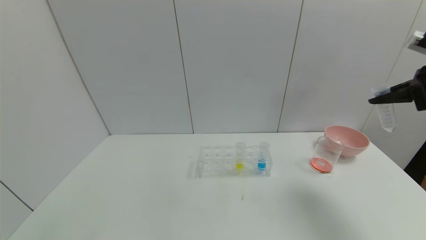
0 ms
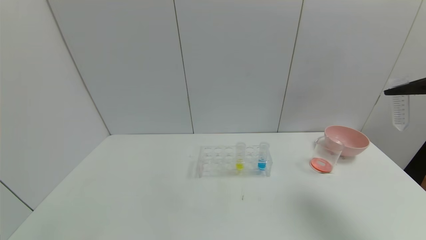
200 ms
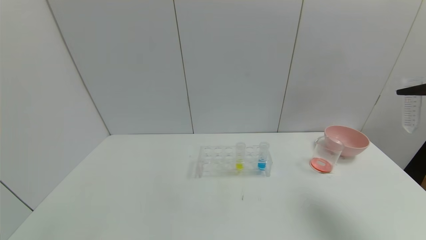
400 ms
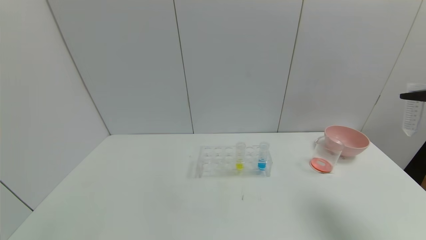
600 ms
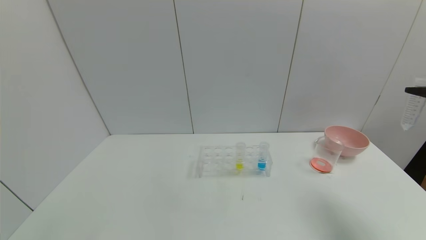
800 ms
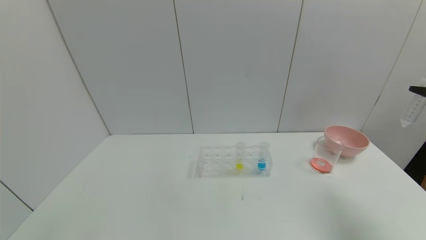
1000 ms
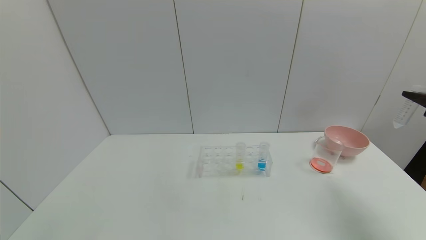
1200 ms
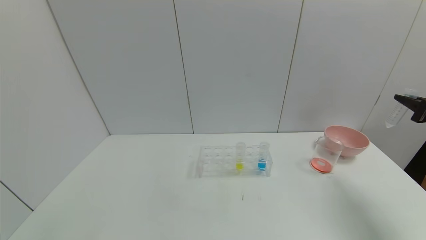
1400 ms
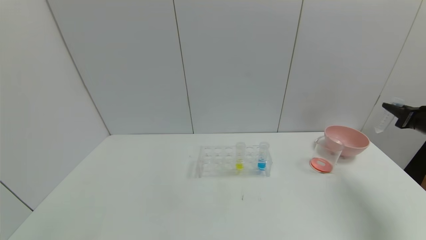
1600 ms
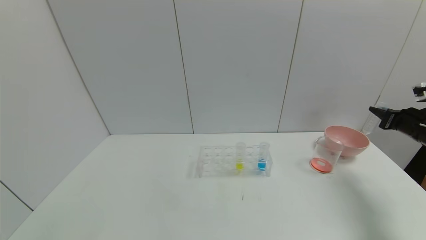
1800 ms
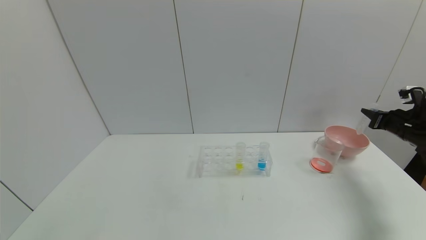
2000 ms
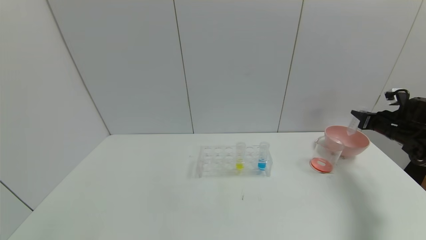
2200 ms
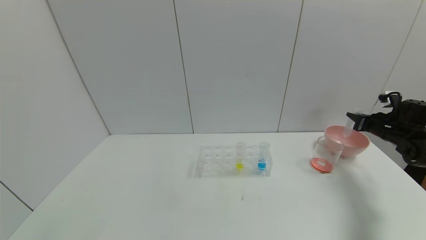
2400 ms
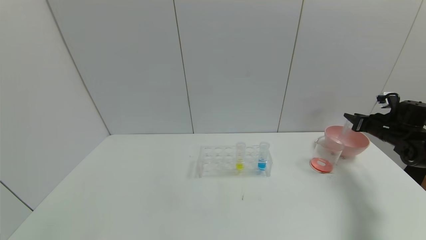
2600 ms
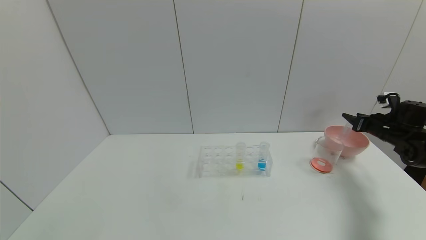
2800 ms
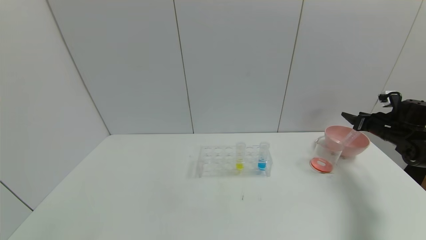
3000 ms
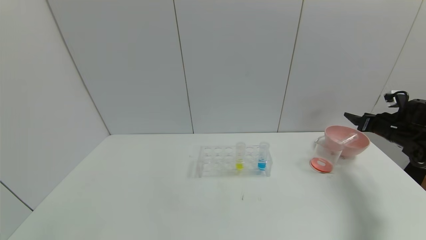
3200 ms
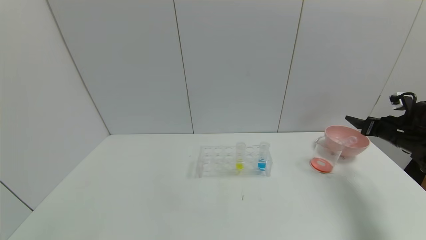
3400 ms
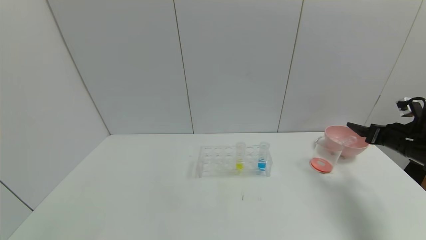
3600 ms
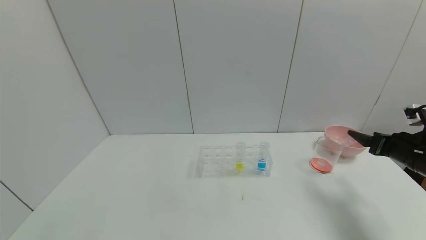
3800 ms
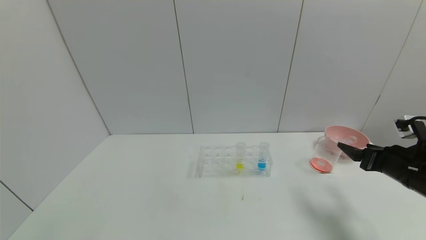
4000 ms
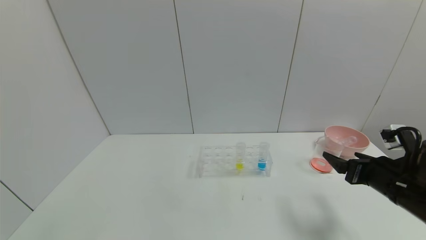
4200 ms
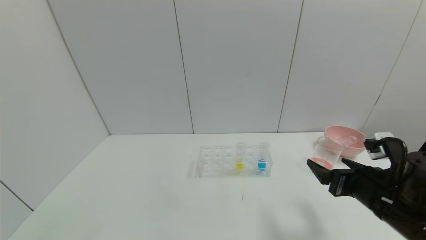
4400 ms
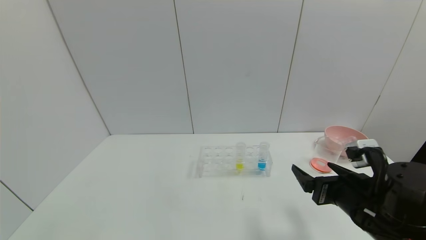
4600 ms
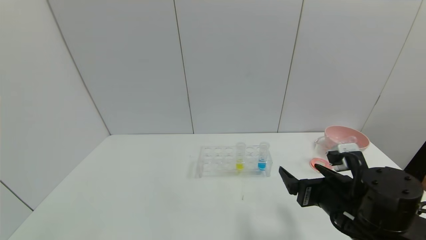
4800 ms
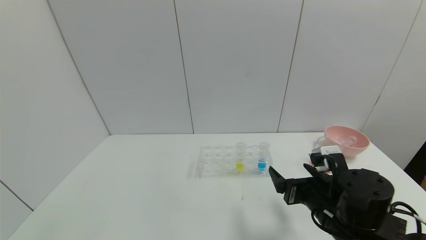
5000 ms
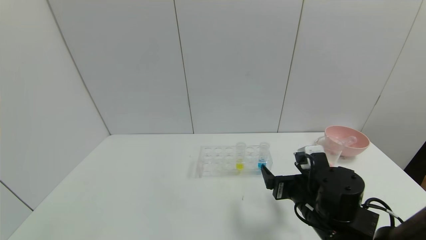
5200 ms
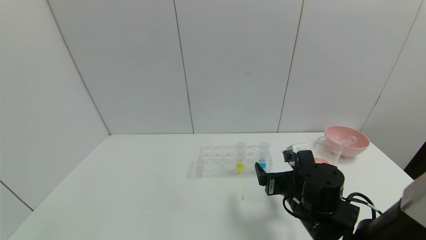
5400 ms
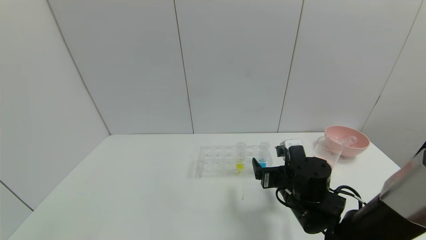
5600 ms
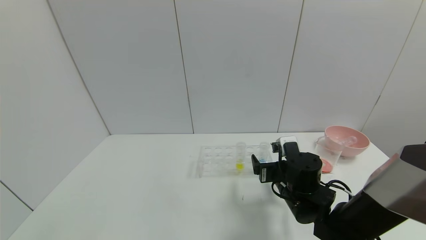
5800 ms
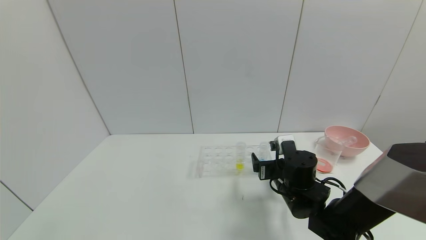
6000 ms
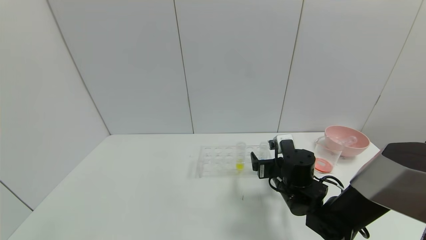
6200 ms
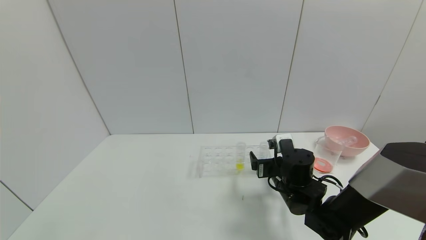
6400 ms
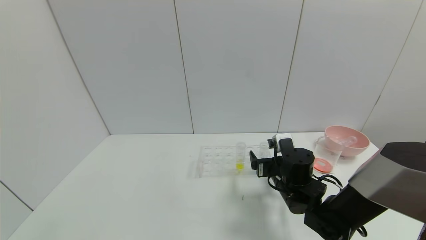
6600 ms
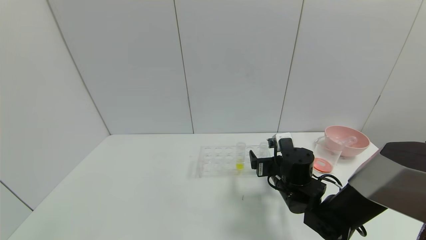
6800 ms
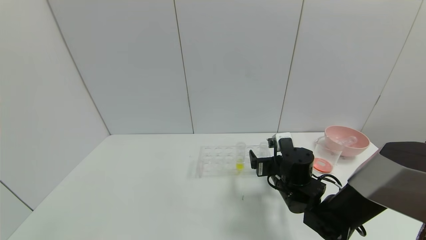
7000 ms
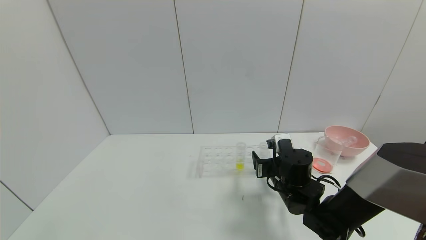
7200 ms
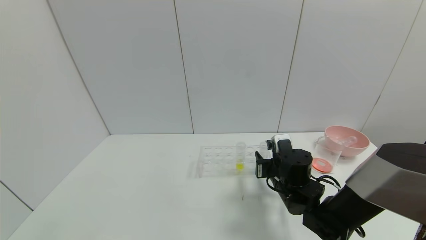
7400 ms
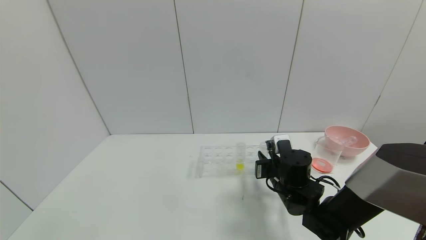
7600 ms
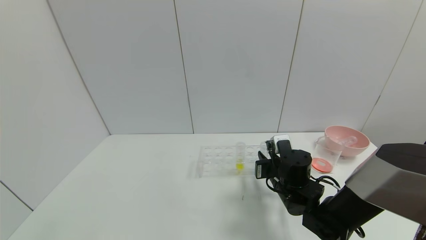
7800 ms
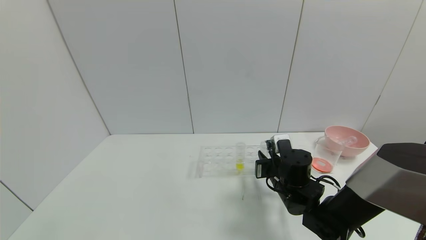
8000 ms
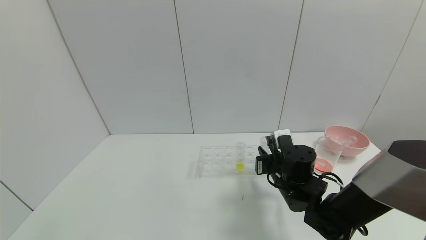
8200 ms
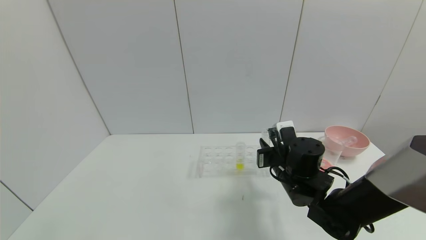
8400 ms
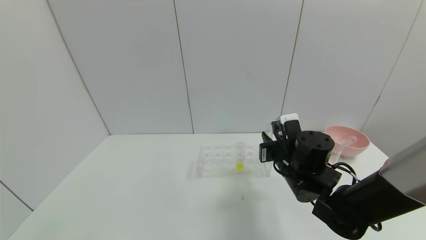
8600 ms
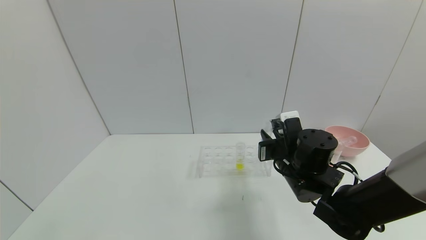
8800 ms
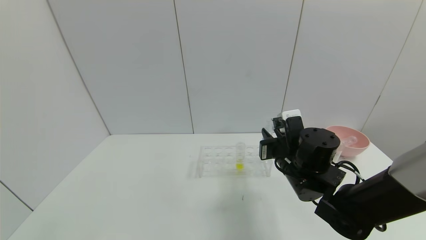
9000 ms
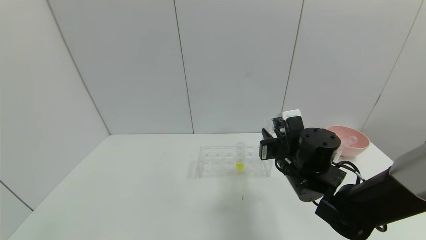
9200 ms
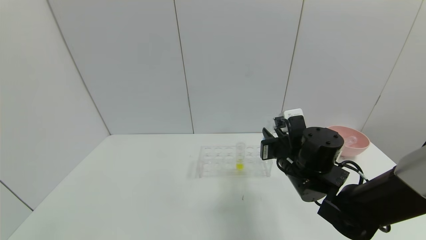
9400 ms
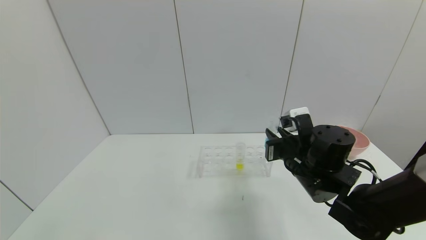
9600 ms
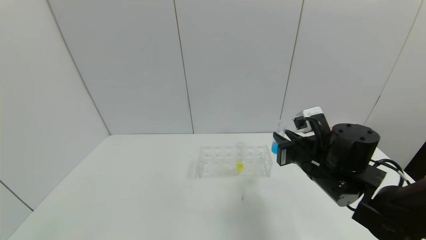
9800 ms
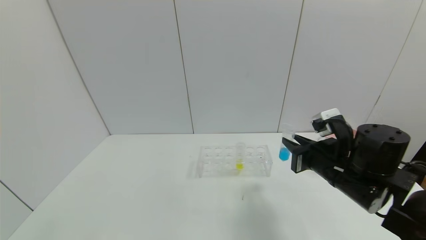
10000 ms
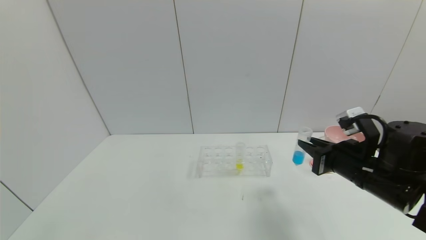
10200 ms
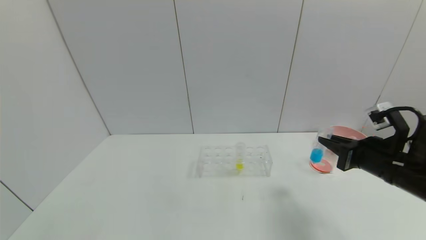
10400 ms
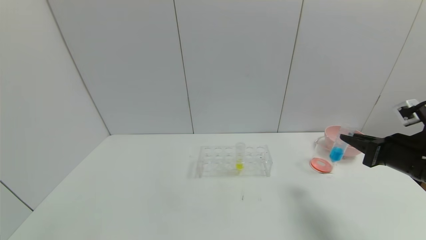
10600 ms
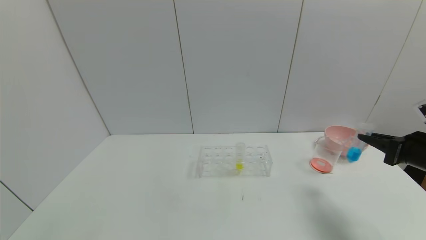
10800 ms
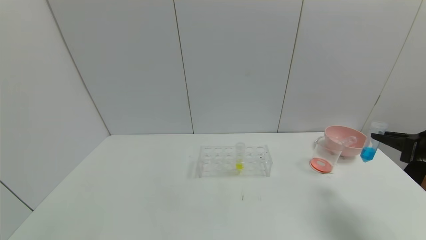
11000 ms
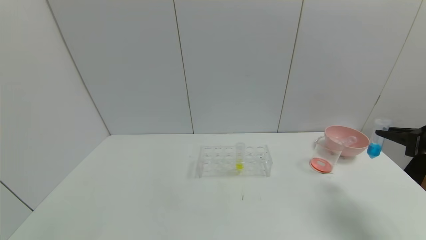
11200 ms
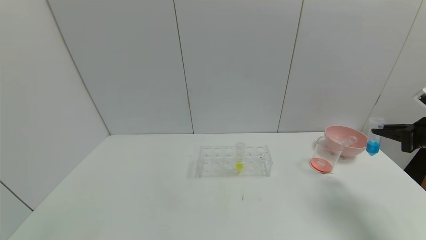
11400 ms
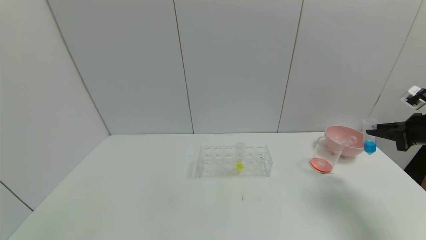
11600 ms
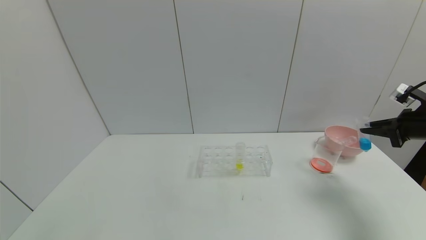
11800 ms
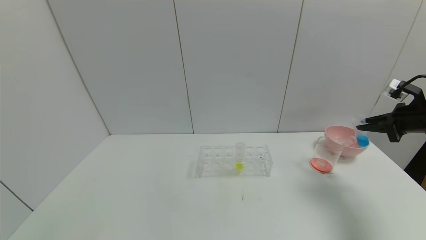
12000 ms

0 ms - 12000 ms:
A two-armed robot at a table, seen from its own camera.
Task of the whole recording: pick up the test tube with red pigment and the test tube with blue pigment by grippers and pour them into the container.
Step, 0 ms - 3400 ms: Place the test tube into the bowl with right gripper.
Step, 3600 ms - 10000 ms: Pick up the test tube containing the blue reagent with right gripper.
0 ms - 1600 ms: The right gripper shifts some 15 cm downward and to the right.
1600 ms - 3000 ms: The right gripper shifts roughly 10 cm forward and downward, and opens up.
3000 ms - 4400 ms: The right gripper shifts approximately 30 cm backward and to the left.
4400 ms - 6000 ms: The right gripper goes roughly 15 cm to the left, forward and downward.
6000 ms - 7600 ms: The right gripper closes its fingers.
7600 ms - 9000 ms: The right gripper moves upward, roughly 5 cm.
9000 ms - 10400 ms: The right gripper heads to the right, covering approximately 15 cm.
10400 ms - 12000 ms: The right gripper heads to the right and forward, covering some 15 cm.

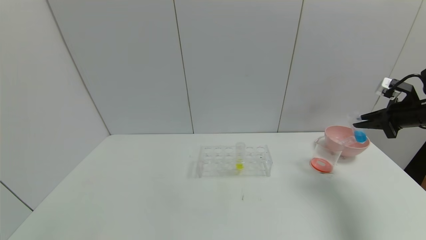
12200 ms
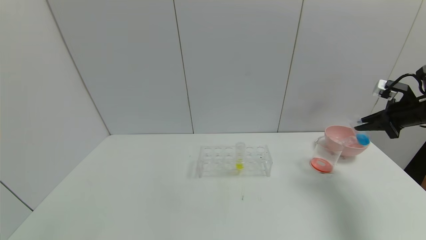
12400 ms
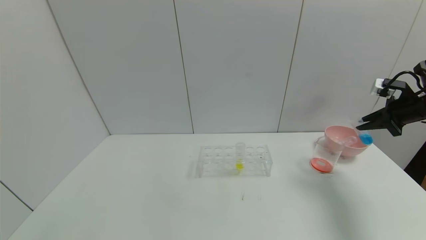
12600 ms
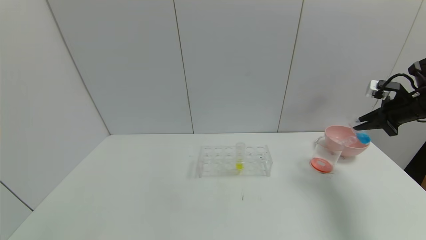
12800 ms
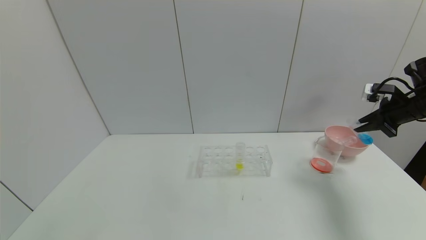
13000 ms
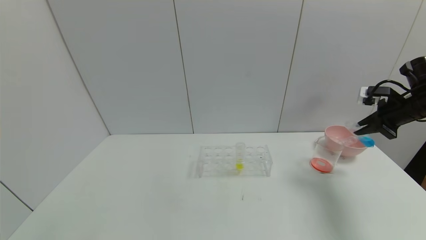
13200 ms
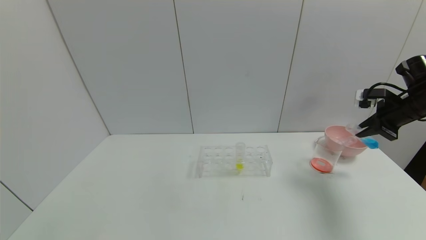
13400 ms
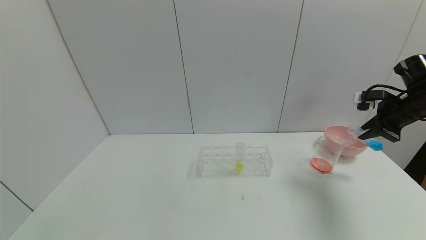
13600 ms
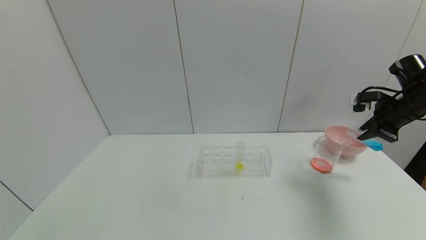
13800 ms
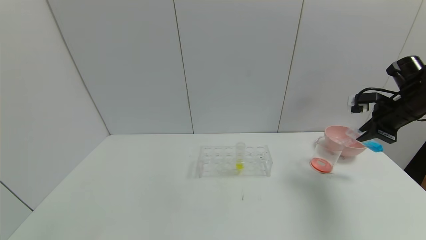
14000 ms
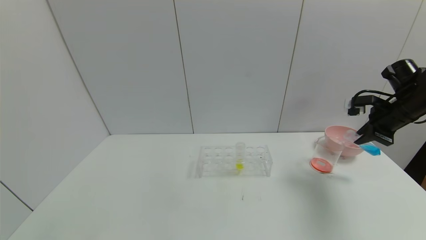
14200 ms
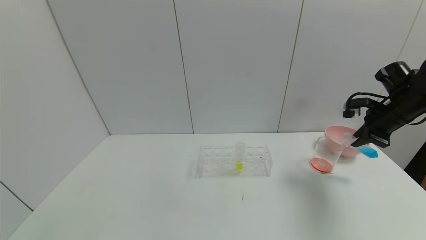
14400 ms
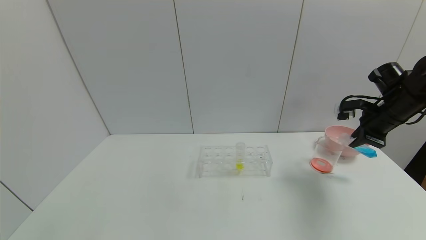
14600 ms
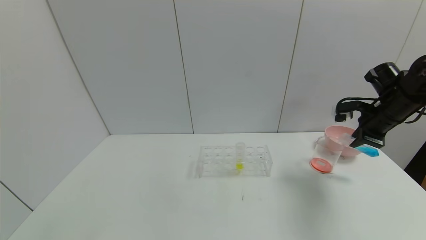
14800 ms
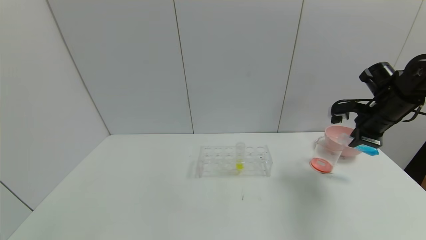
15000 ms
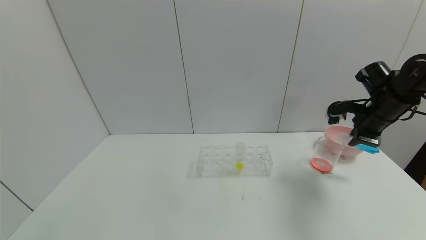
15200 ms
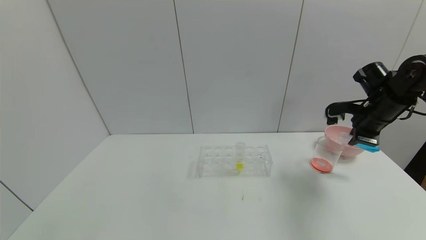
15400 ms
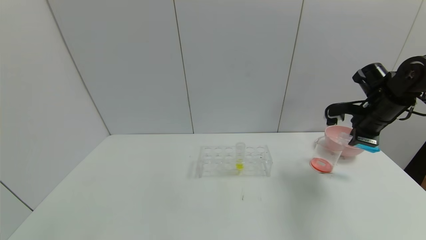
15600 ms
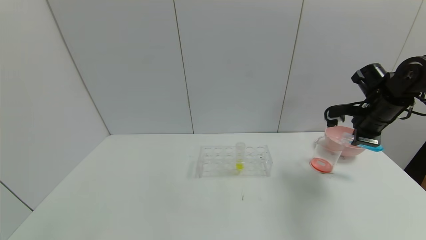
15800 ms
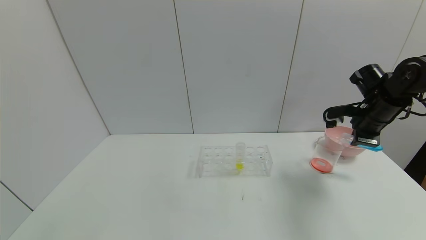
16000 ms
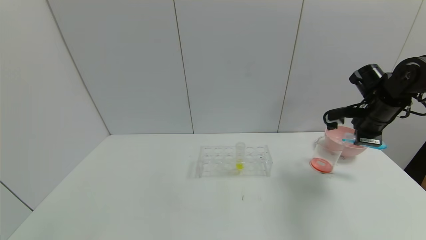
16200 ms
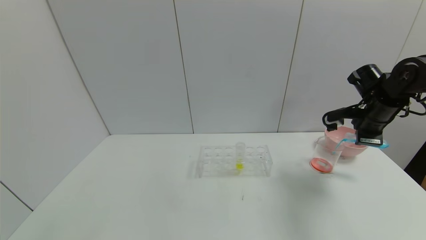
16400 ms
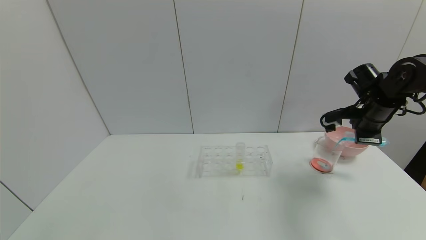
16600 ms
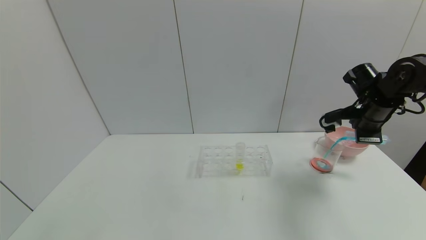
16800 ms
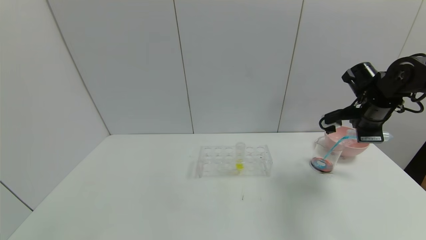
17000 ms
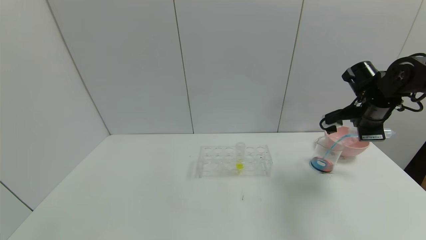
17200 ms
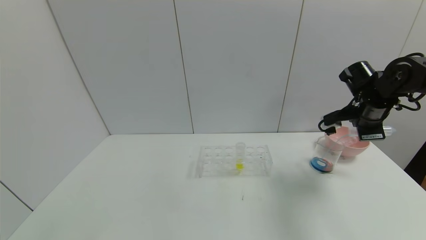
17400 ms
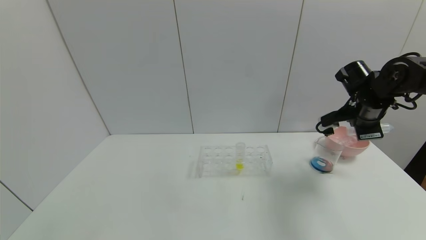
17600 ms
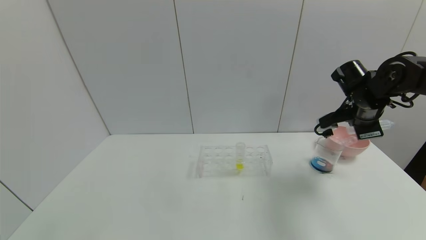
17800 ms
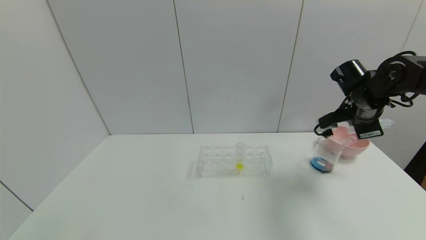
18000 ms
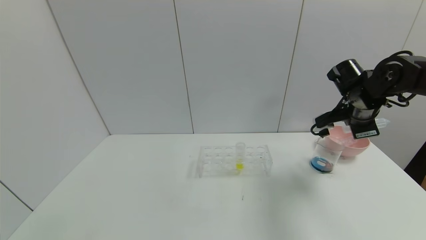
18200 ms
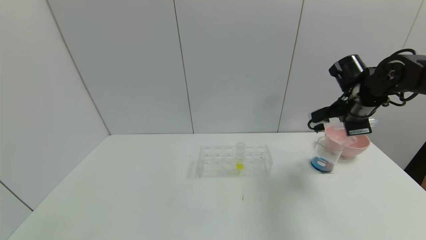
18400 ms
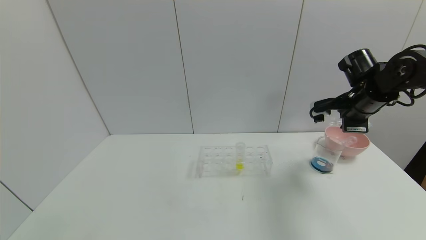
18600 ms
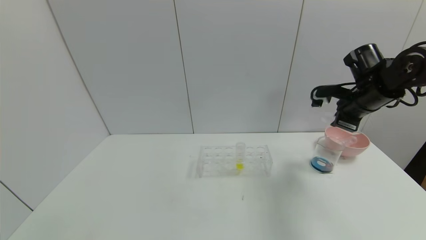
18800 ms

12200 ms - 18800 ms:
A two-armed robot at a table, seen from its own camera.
Task of the whole recording: pick up the test tube with red pigment and the test tube with blue pigment by grippers and pour them into the container.
13800 ms - 15400 ms: The right gripper travels to the left by about 5 cm.
